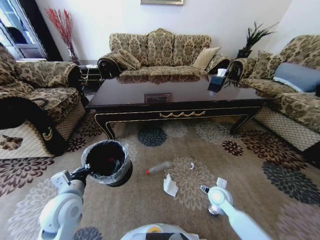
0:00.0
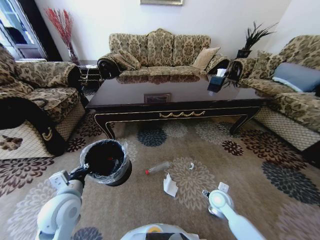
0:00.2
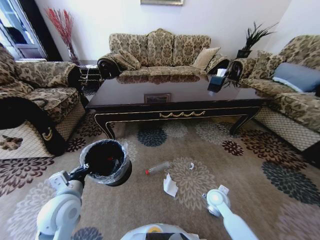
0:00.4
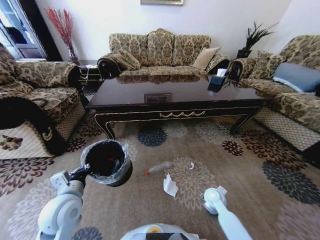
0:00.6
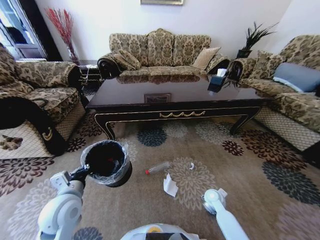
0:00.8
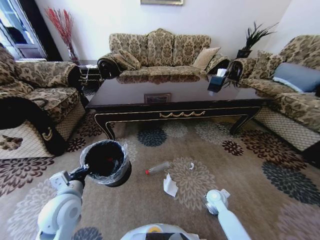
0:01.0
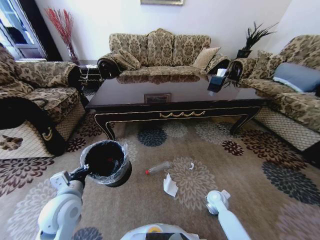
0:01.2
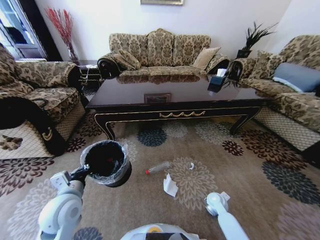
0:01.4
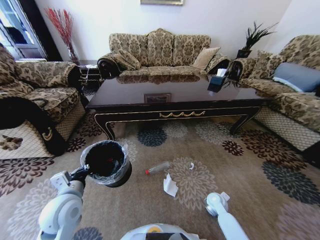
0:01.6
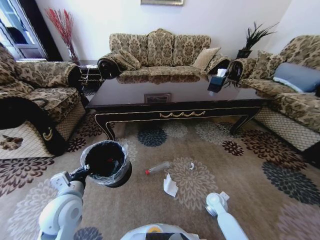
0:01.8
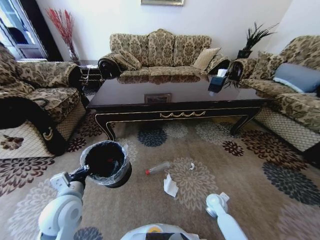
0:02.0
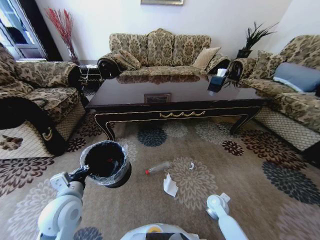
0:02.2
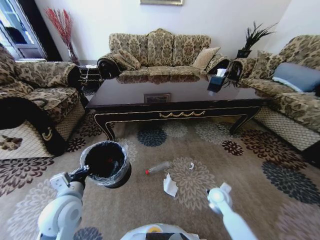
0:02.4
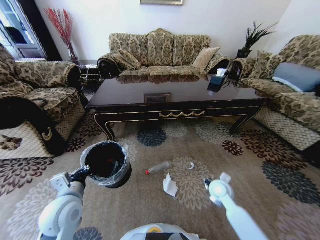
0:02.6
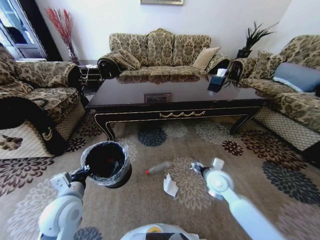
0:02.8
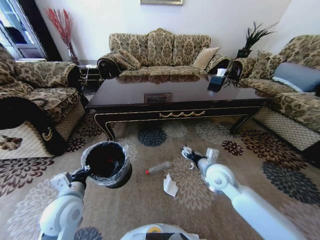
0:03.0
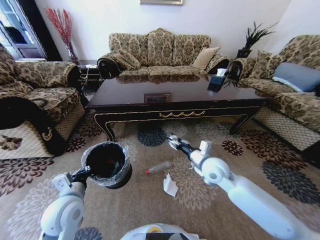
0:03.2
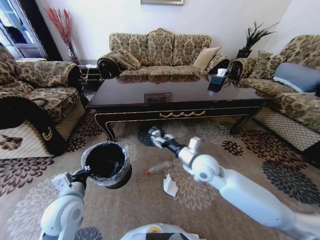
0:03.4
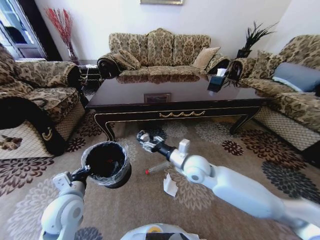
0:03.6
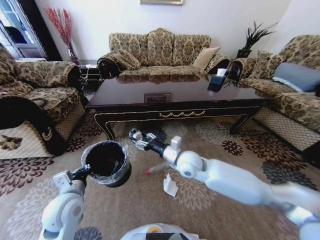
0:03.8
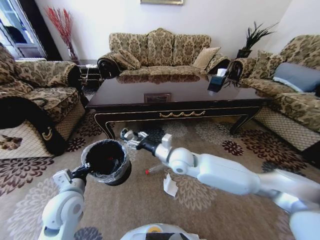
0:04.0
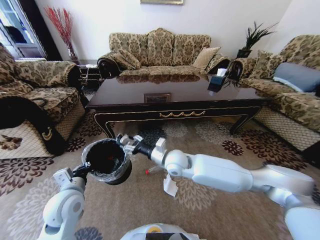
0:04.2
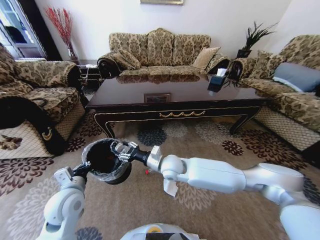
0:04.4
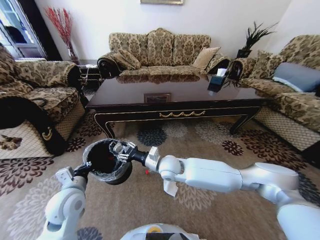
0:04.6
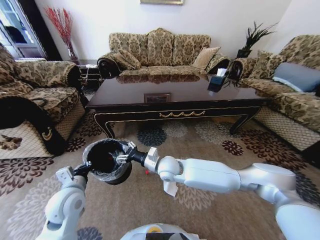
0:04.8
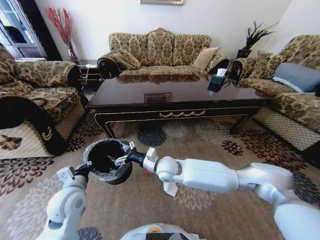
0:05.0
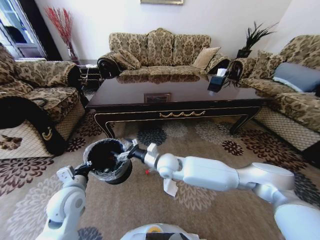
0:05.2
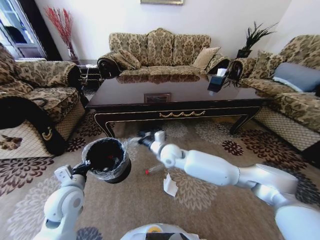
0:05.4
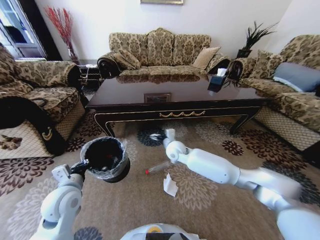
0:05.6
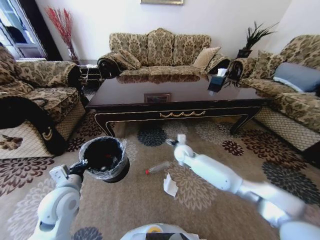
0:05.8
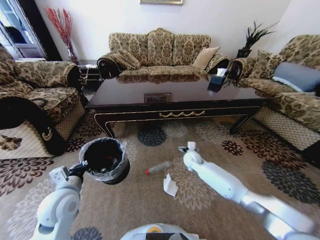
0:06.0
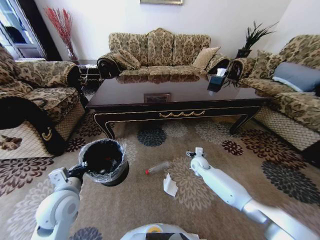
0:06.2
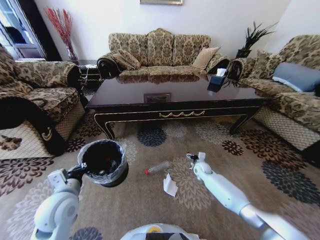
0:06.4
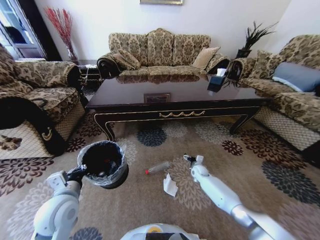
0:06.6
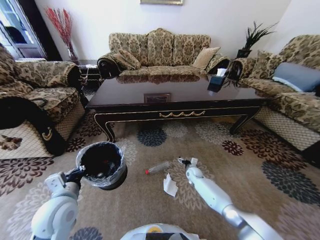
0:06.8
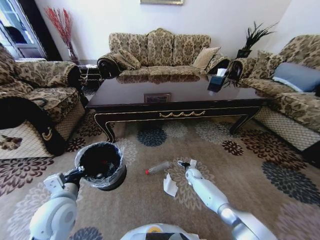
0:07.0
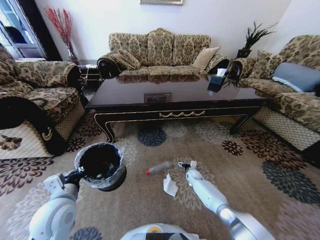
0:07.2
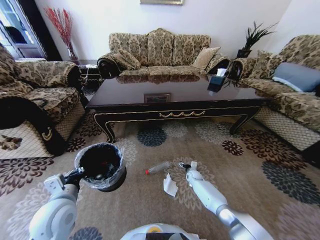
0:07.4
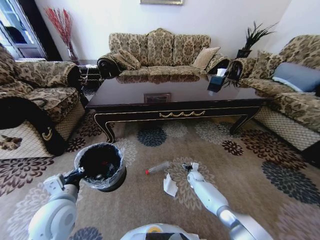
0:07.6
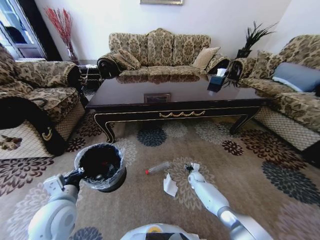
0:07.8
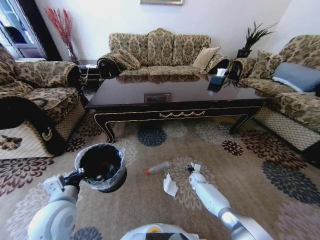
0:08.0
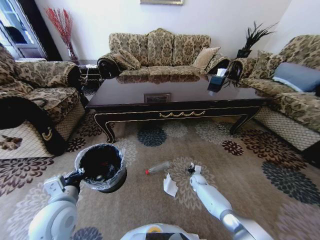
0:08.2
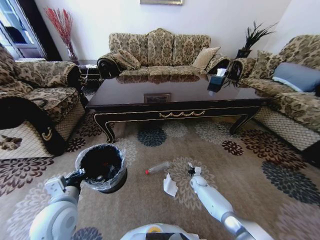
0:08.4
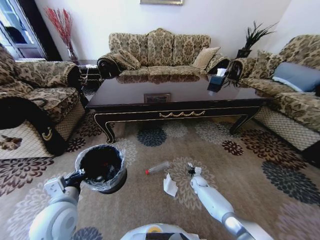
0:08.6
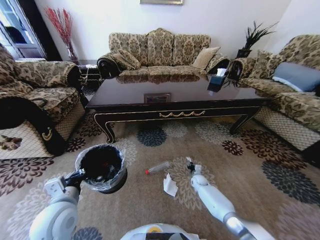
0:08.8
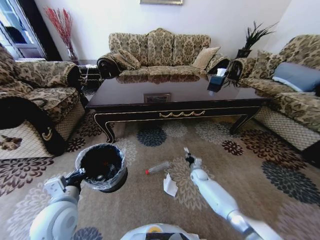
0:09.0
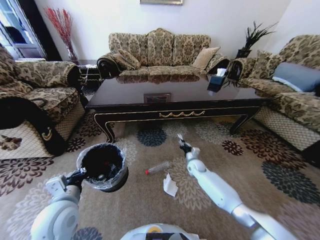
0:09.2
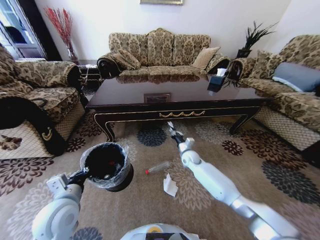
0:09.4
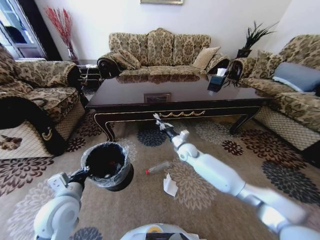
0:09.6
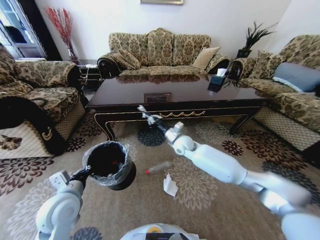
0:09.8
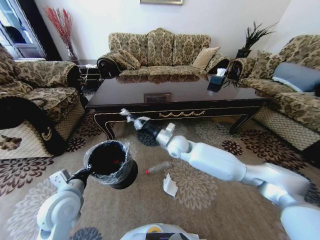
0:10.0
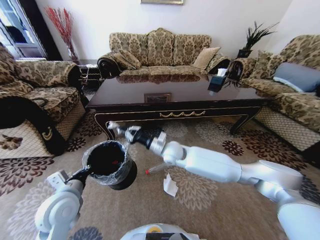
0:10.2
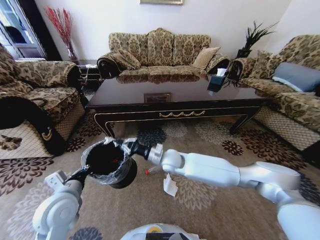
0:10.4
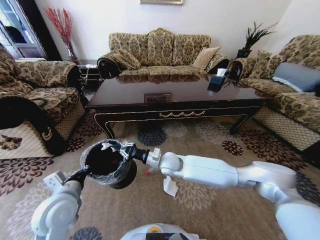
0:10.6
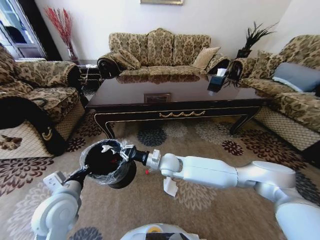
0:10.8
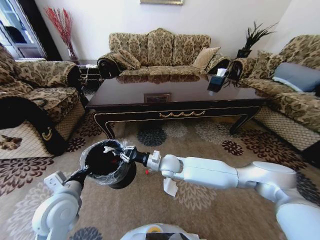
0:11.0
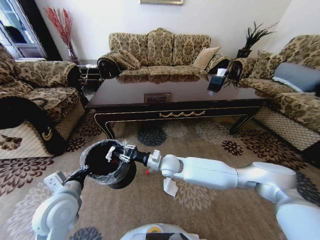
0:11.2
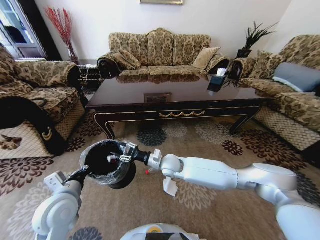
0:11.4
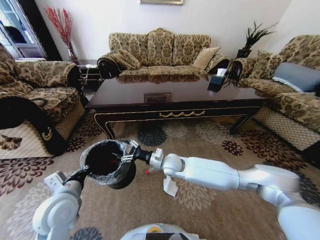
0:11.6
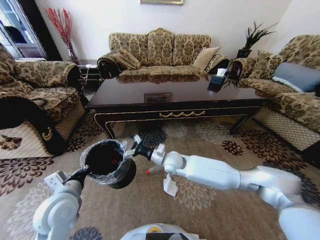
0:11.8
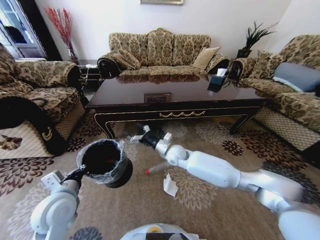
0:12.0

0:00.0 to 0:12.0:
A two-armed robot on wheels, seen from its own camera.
Task of the whole recording: Move to the front of the table and pick up the trash from the floor, then place it into the trash bin.
0:00.0 to 0:01.6: The right gripper moves downward, roughly 10 cm.
0:01.6 to 0:03.0: The right gripper goes about 25 cm upward.
0:03.0 to 0:04.4: The right gripper goes about 20 cm to the left.
0:04.4 to 0:06.0: The right gripper shifts approximately 25 cm to the right, downward and forward, and opens.
0:06.0 to 0:07.6: The right gripper shifts about 20 cm downward.
0:07.6 to 0:09.0: The right gripper closes up.
0:09.0 to 0:10.4: The right gripper goes some 35 cm upward and to the left.
0:10.4 to 0:12.0: The right gripper shifts by some 5 cm, and opens.

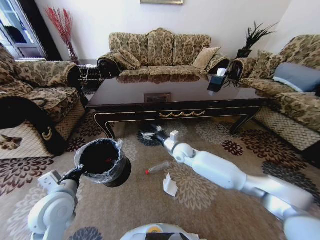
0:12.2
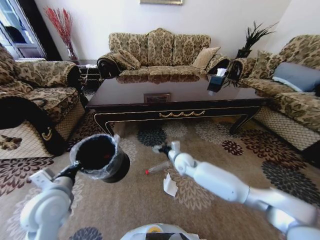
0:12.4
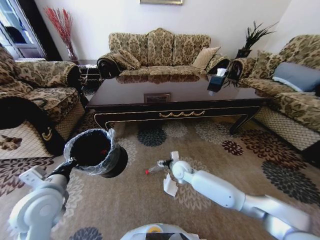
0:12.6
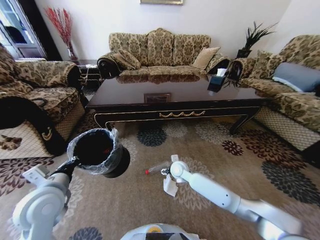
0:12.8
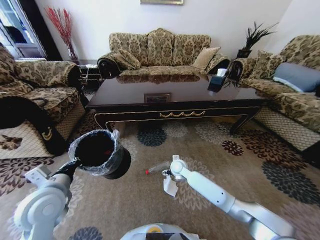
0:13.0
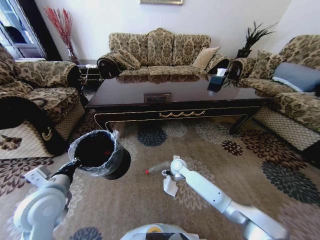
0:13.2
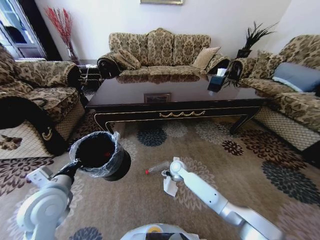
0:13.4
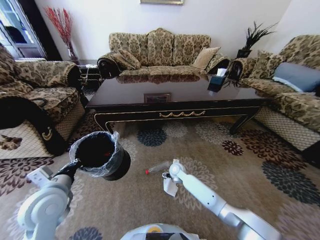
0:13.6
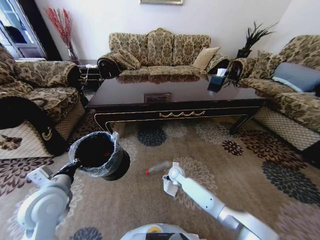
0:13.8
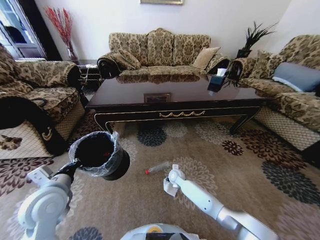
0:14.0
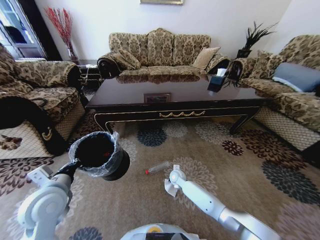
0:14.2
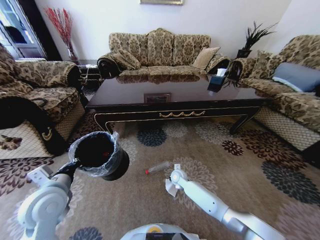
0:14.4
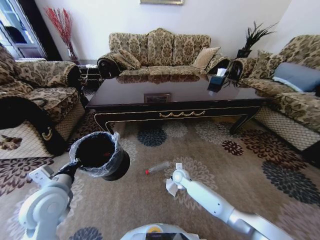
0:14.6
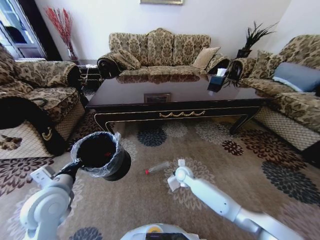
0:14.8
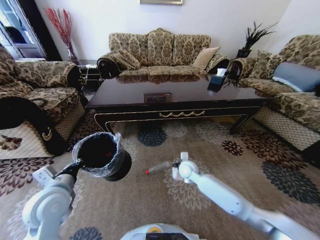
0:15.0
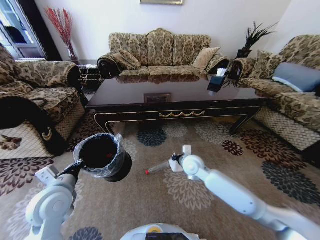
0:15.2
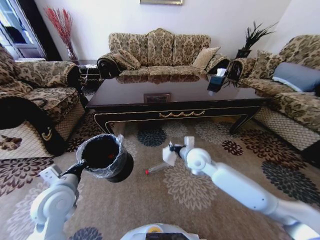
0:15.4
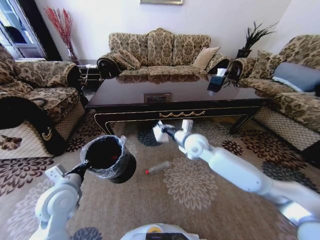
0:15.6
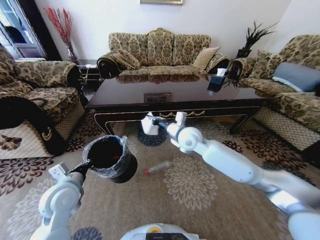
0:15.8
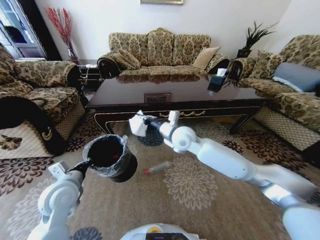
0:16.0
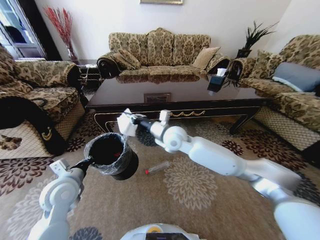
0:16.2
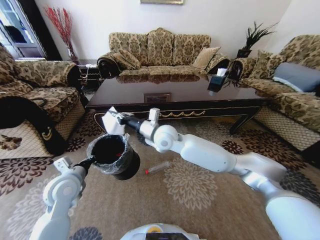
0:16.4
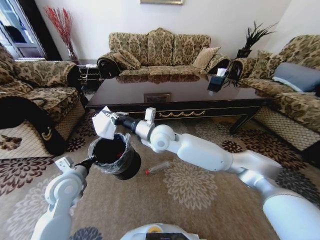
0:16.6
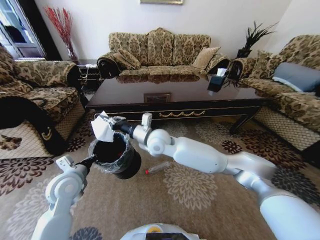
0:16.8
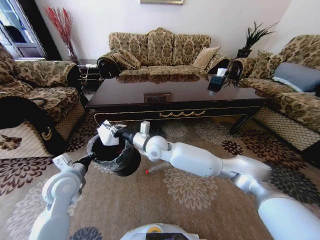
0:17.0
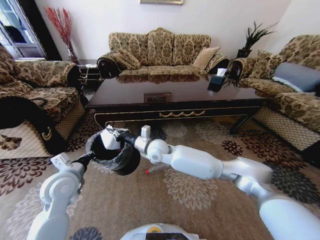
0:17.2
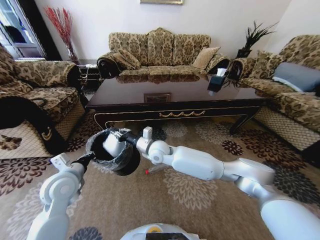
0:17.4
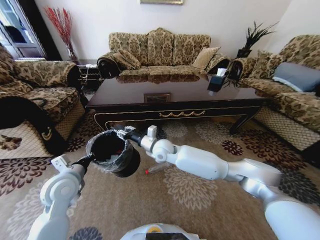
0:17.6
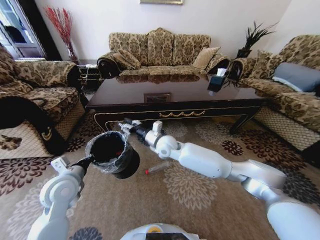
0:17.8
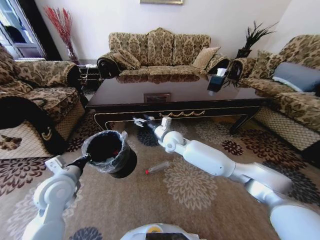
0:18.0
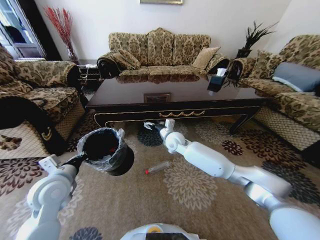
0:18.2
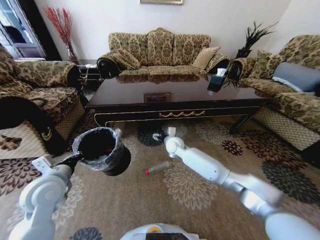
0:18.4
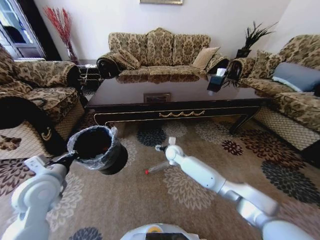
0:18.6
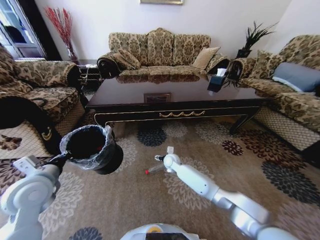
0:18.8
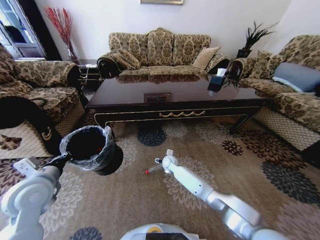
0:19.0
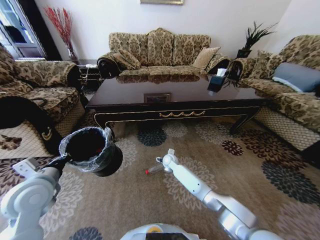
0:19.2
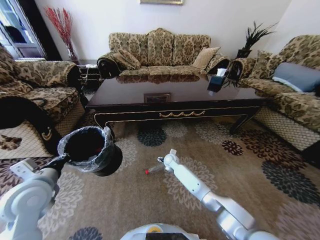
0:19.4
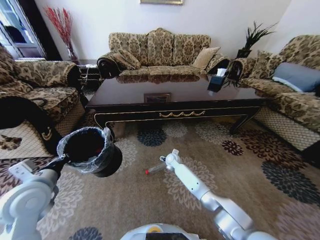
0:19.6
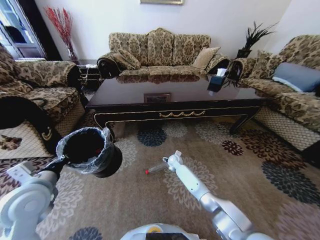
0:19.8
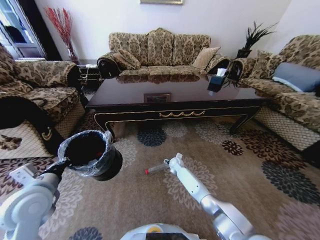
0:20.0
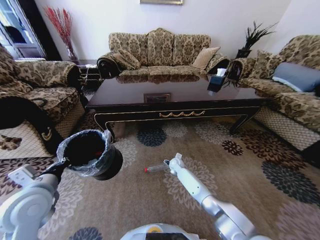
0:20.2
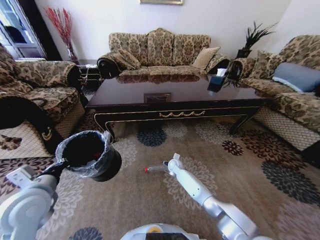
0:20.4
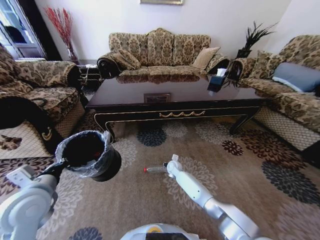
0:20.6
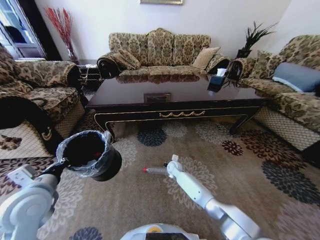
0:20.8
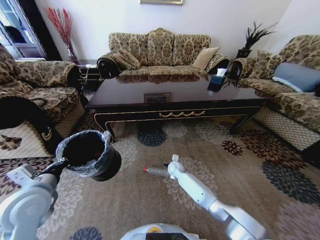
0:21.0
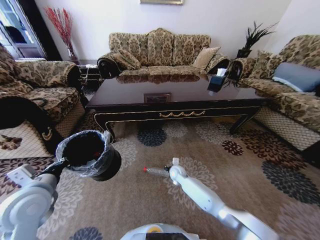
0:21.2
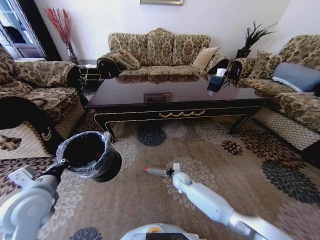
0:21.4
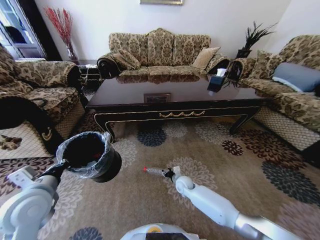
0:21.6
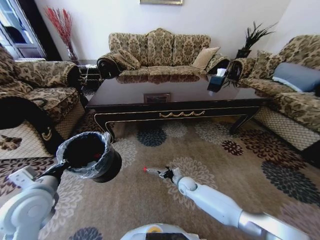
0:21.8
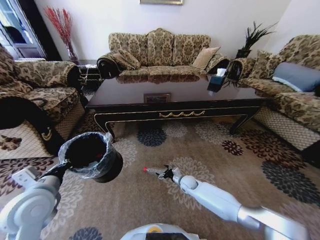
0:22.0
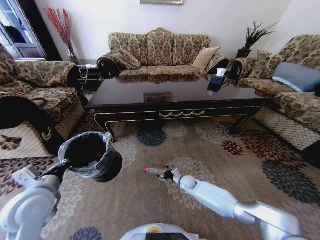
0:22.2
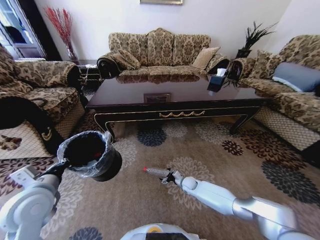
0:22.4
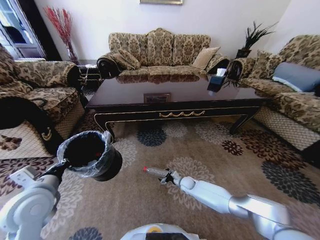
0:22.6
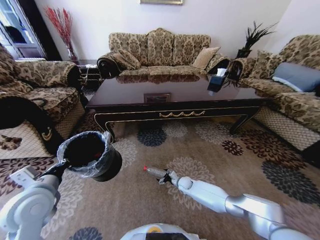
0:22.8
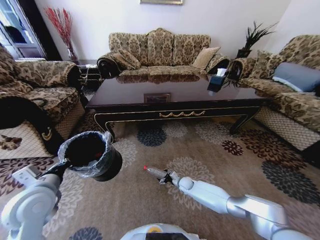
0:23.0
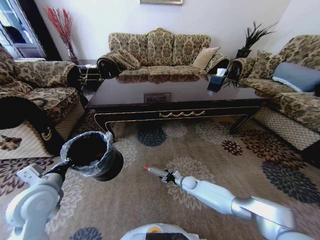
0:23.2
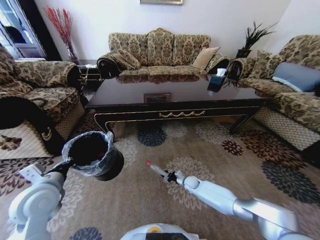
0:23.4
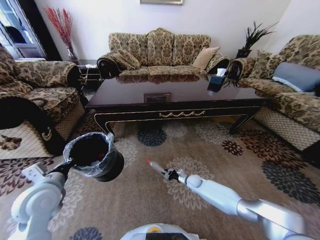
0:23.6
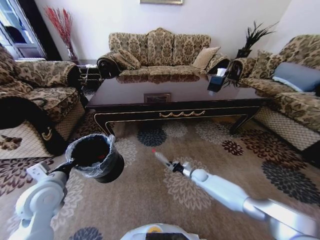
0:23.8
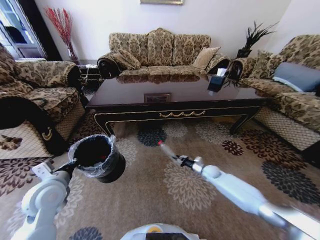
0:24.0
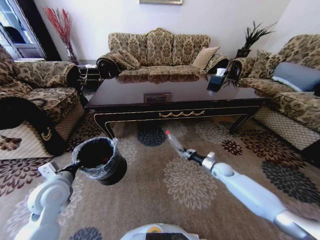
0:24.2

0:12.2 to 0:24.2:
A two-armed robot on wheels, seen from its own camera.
Task of the whole recording: Move to the front of the table and pick up the trash from the floor, then place it into the trash bin.
0:12.2 to 0:13.8: The right gripper travels downward by roughly 15 cm.
0:13.8 to 0:15.2: The right gripper is displaced upward by roughly 20 cm, and closes up.
0:15.2 to 0:16.6: The left gripper is displaced forward by some 5 cm; the right gripper is displaced to the left and upward by approximately 20 cm.
0:16.6 to 0:18.2: The right gripper moves downward, to the right and forward, about 15 cm, and opens up.
0:18.2 to 0:19.8: The left gripper moves about 5 cm, while the right gripper goes some 20 cm downward.
0:19.8 to 0:21.2: The right gripper travels backward by some 10 cm, and closes up.
0:21.2 to 0:22.6: The right gripper heads downward and to the right, covering roughly 10 cm, and opens up.
0:22.6 to 0:24.2: The right gripper heads to the right and upward, covering approximately 20 cm, and closes up; the left gripper shifts by roughly 5 cm.
